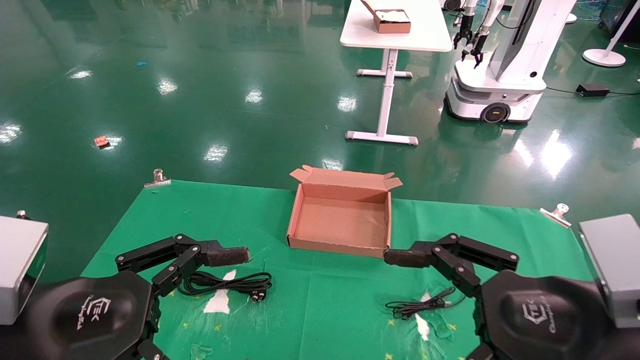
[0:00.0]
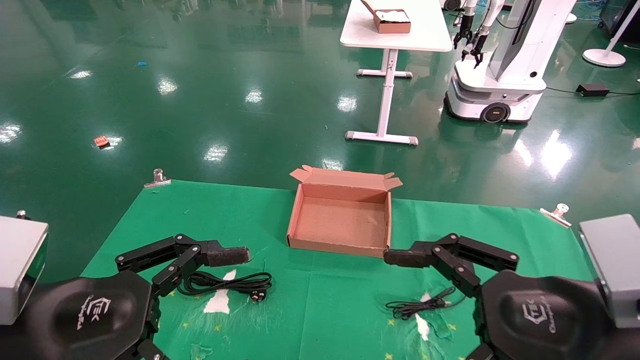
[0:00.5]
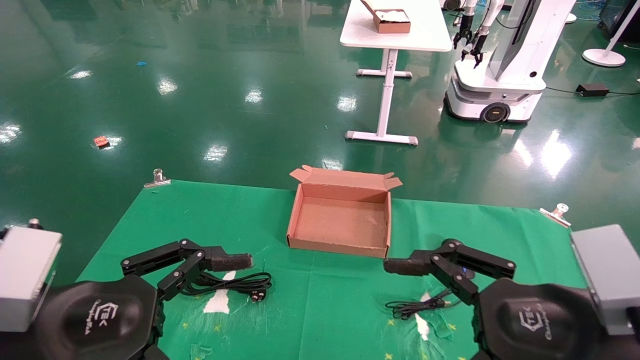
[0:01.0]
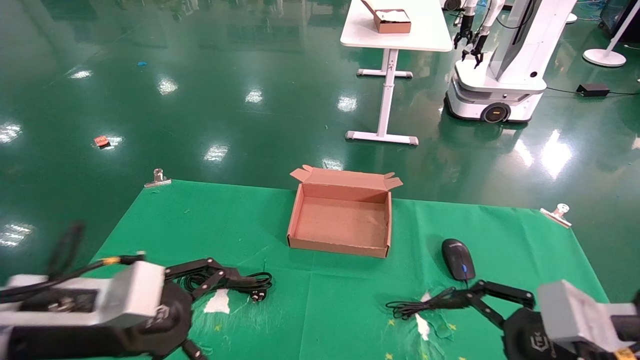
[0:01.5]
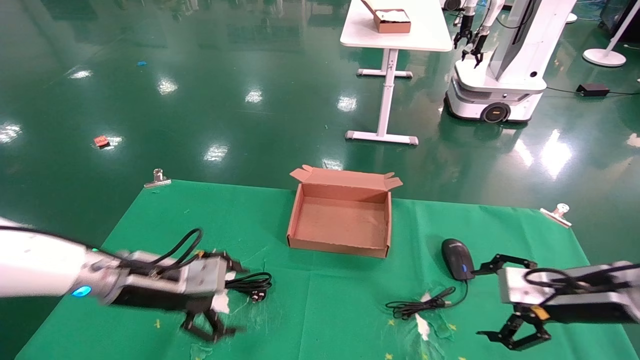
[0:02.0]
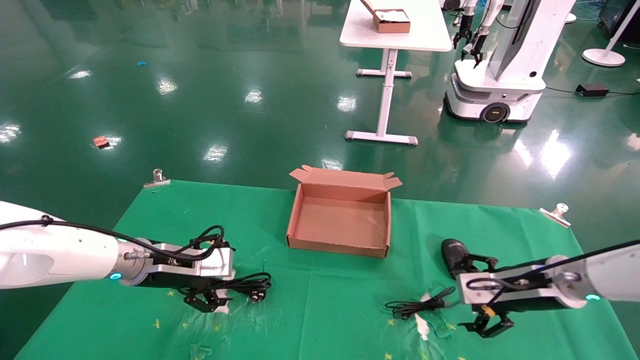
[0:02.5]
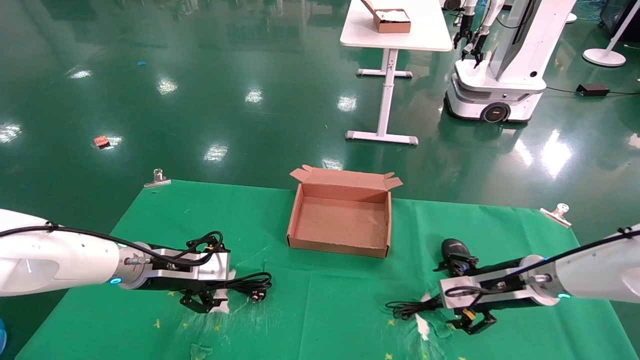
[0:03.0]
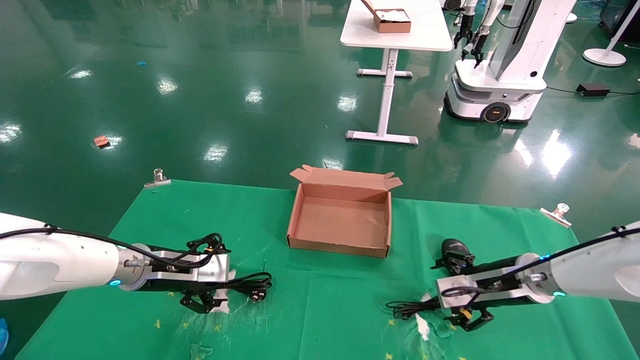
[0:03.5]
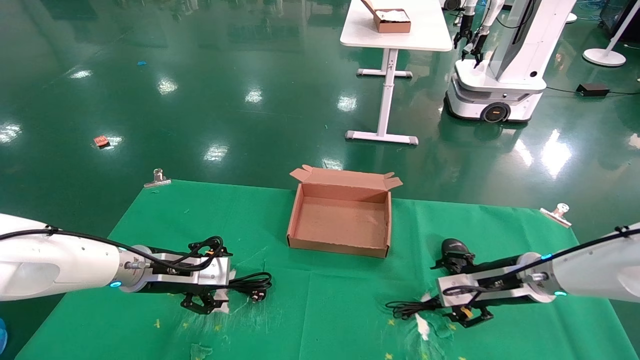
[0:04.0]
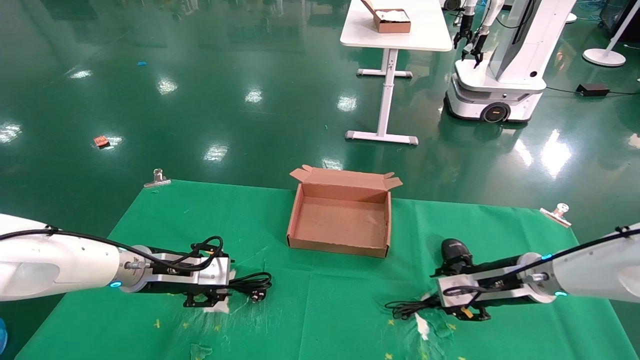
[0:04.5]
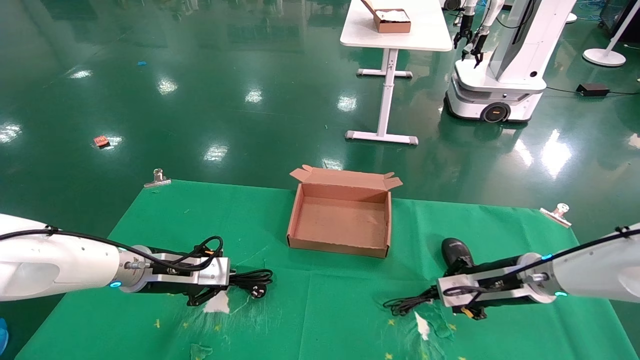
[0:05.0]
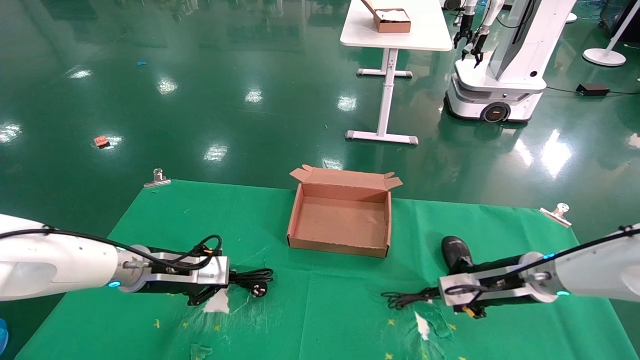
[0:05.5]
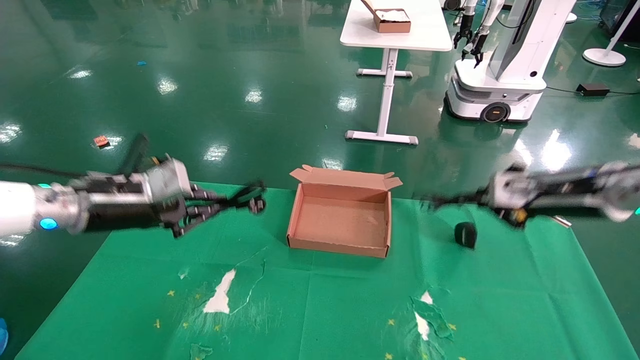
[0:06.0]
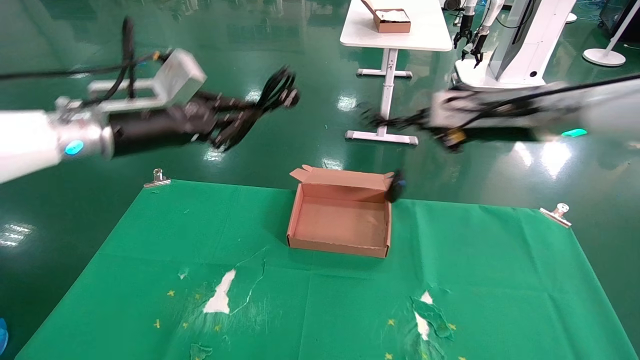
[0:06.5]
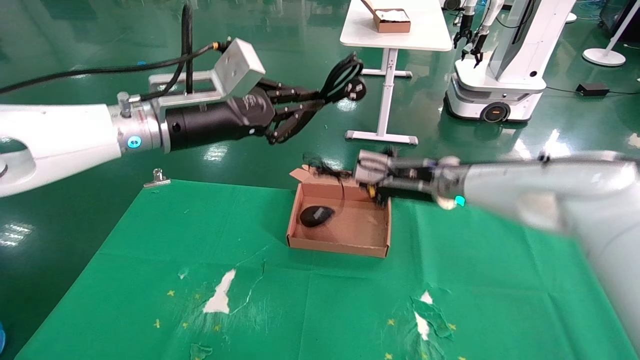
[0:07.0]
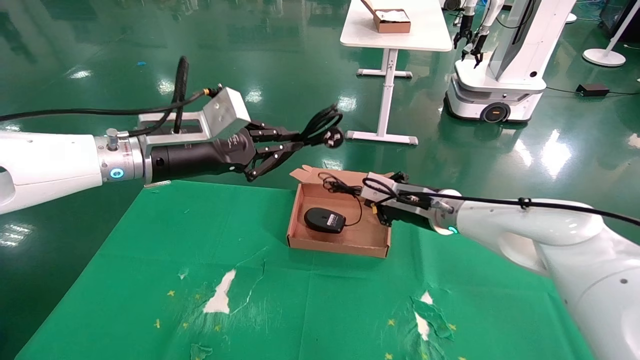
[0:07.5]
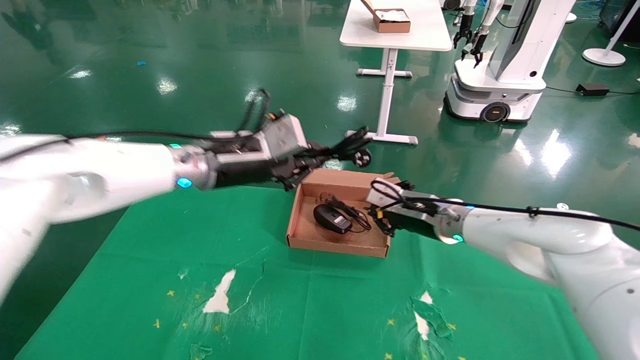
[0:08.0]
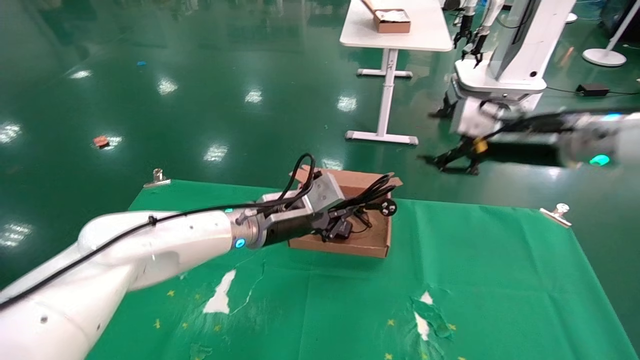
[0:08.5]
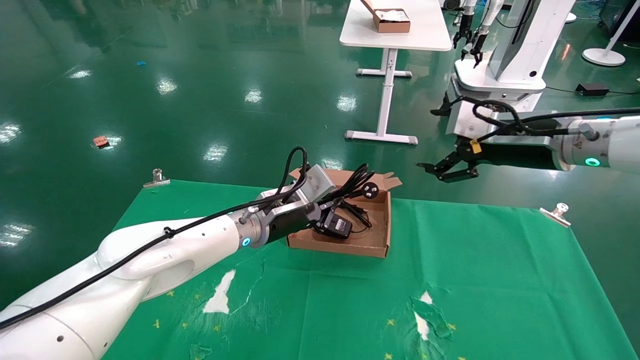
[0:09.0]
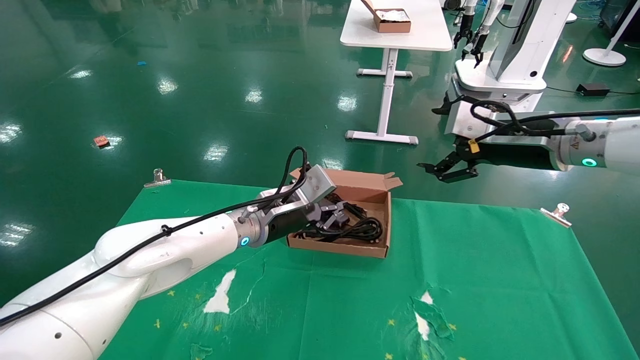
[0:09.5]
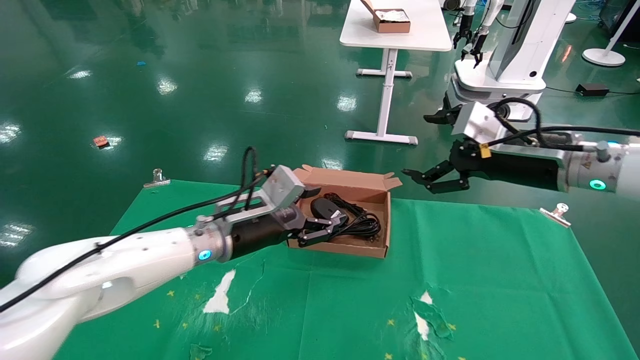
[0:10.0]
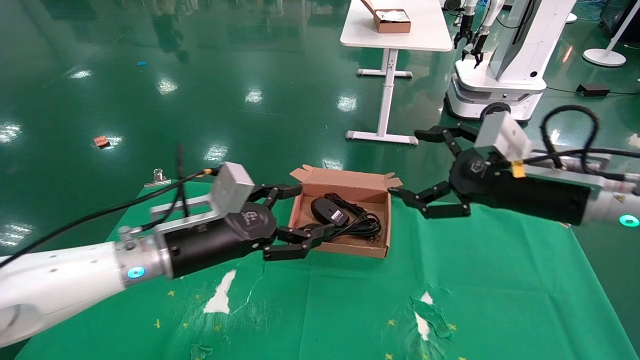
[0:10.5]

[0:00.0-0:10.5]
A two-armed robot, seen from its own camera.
Step, 0:02.0 to 0:05.5: Grab and lift both the mouse and power cord from the accessory packaging area at the same time.
0:00.0 to 0:02.0: The left gripper travels forward by about 20 cm. Meanwhile the right gripper moves forward, to the right and downward, approximately 20 cm.
0:02.0 to 0:04.0: The right gripper goes some 10 cm forward and to the left. The left gripper moves forward, some 5 cm.
0:04.0 to 0:06.5: Both grippers move upward, approximately 20 cm. The right gripper closes its fingers. Meanwhile the left gripper closes its fingers.
0:06.5 to 0:08.5: The left gripper shifts some 20 cm to the right and downward, while the right gripper reaches approximately 15 cm downward, then returns, and opens its fingers.
0:08.5 to 0:10.5: The left gripper heads backward and to the left, covering roughly 15 cm, and opens its fingers, while the right gripper heads backward, covering approximately 10 cm, and opens its fingers.

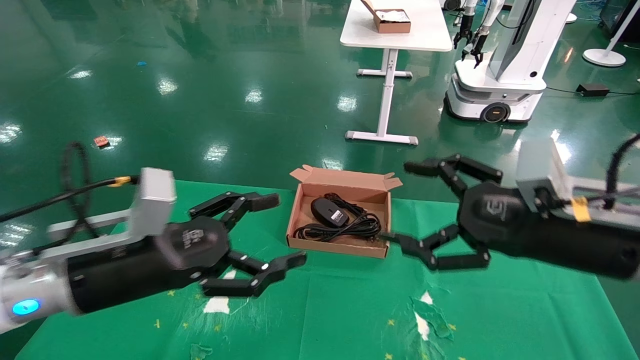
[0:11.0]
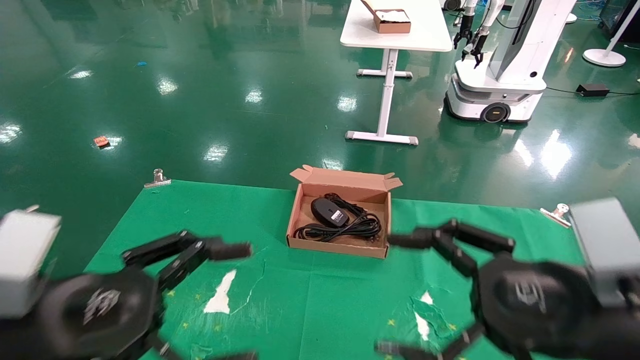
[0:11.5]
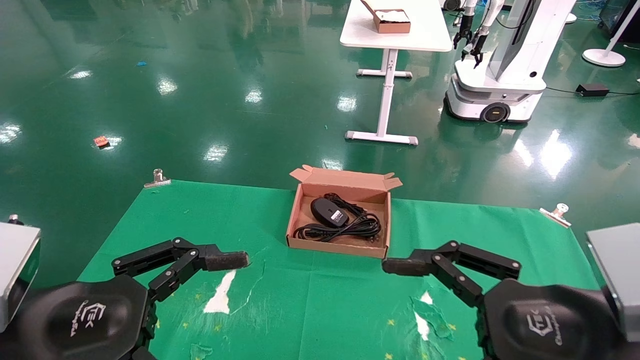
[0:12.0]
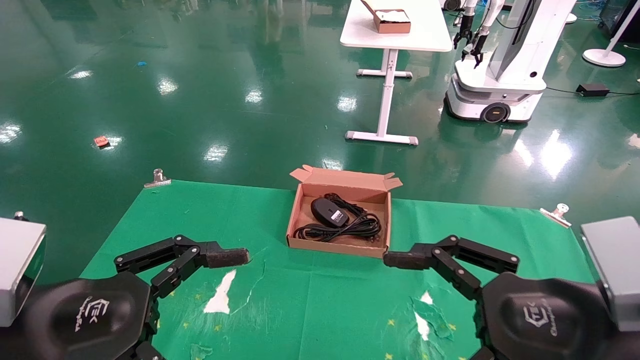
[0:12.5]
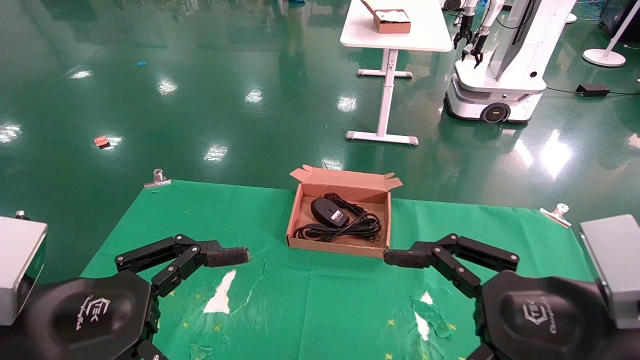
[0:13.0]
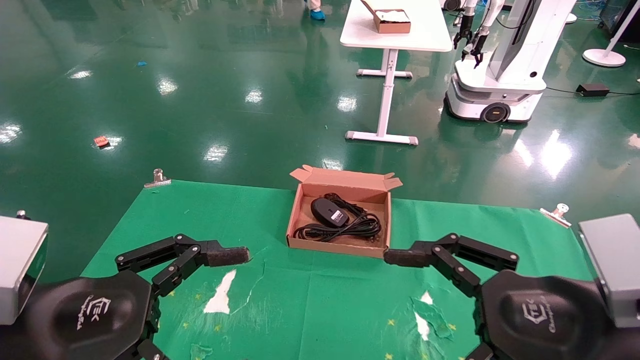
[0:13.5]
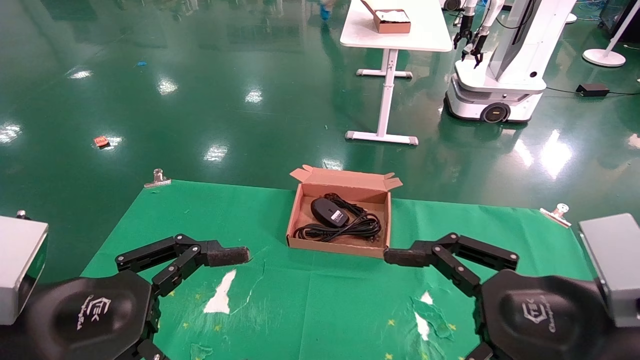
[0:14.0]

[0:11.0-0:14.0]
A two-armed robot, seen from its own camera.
0:11.0 to 0:12.5: The two grippers go about 10 cm backward.
0:12.5 to 0:14.0: The two grippers keep their place.

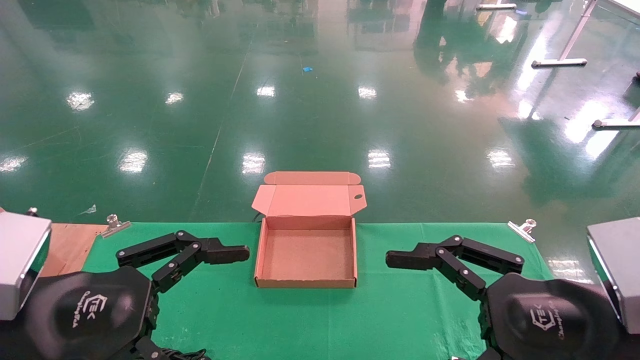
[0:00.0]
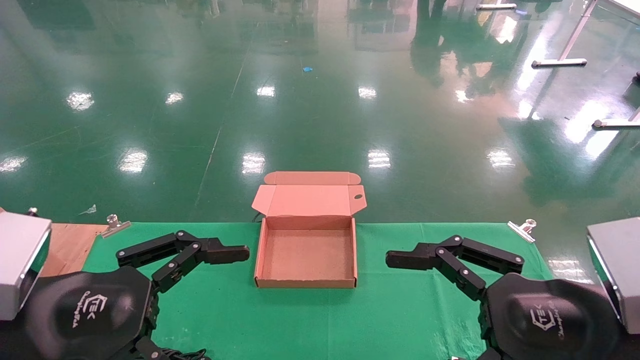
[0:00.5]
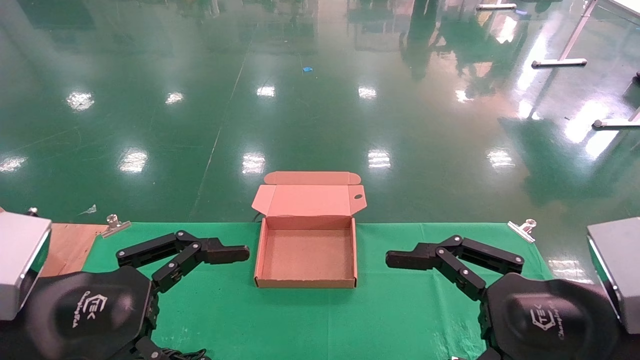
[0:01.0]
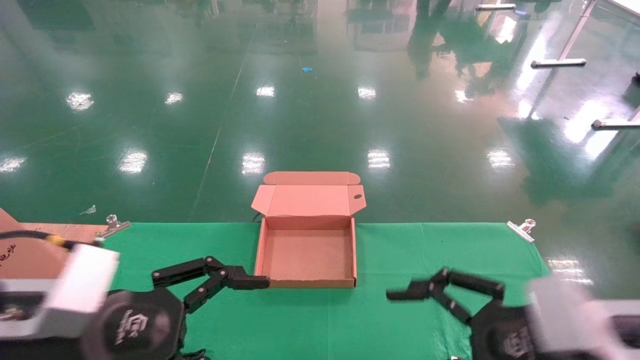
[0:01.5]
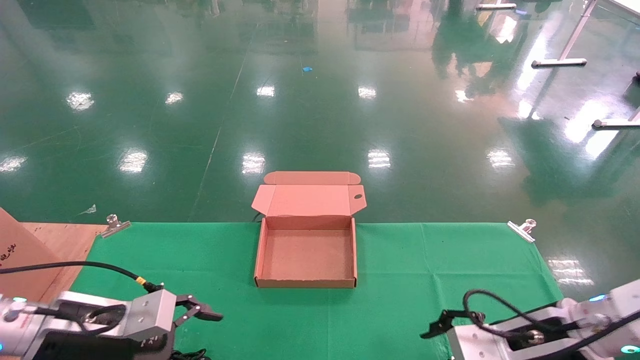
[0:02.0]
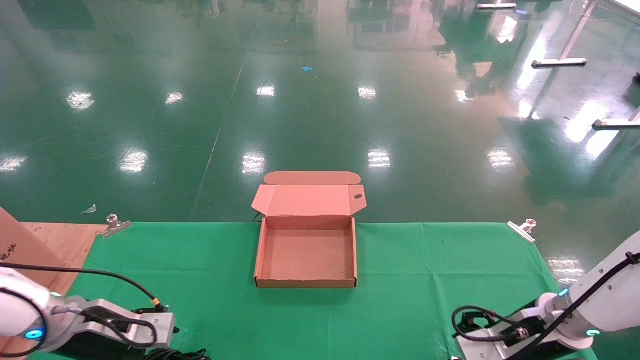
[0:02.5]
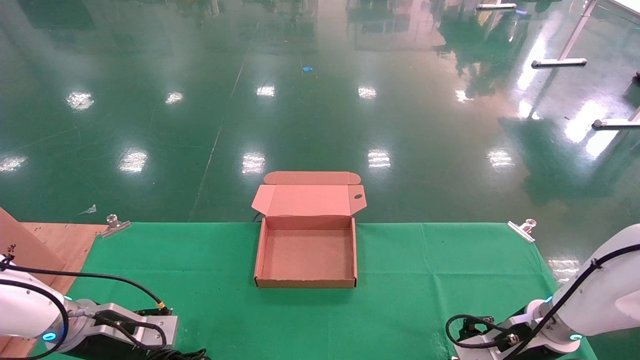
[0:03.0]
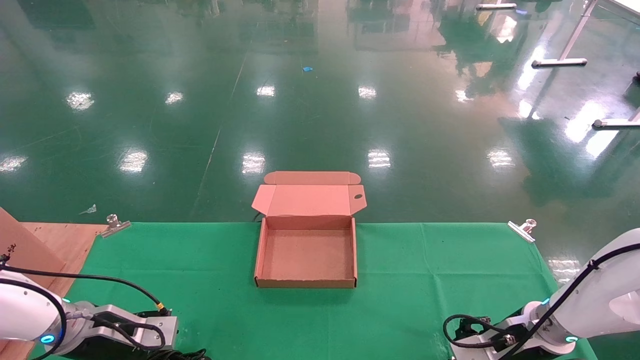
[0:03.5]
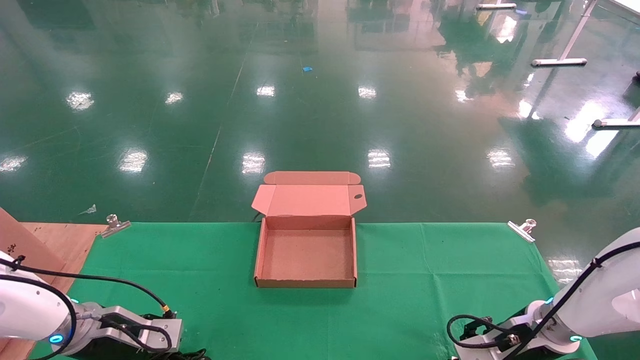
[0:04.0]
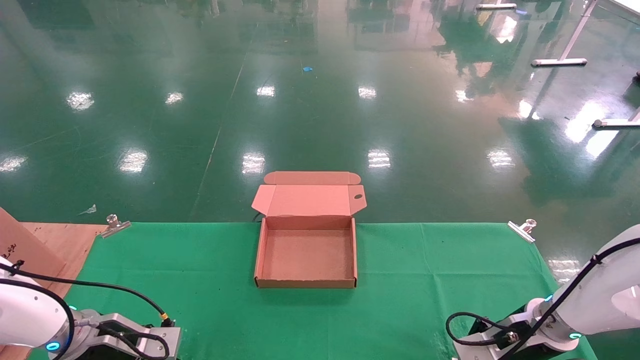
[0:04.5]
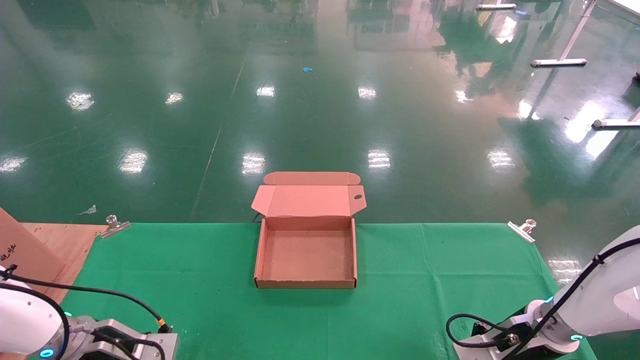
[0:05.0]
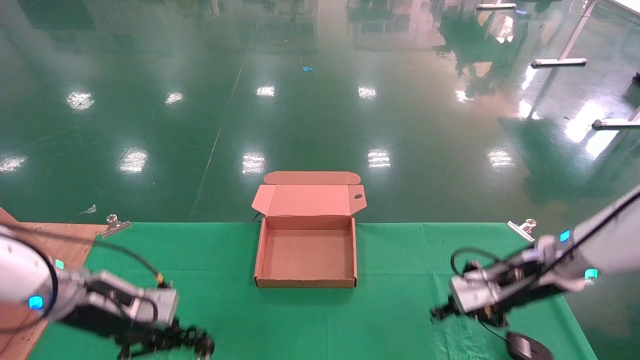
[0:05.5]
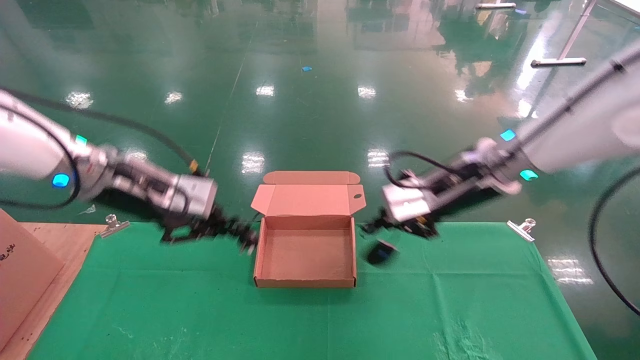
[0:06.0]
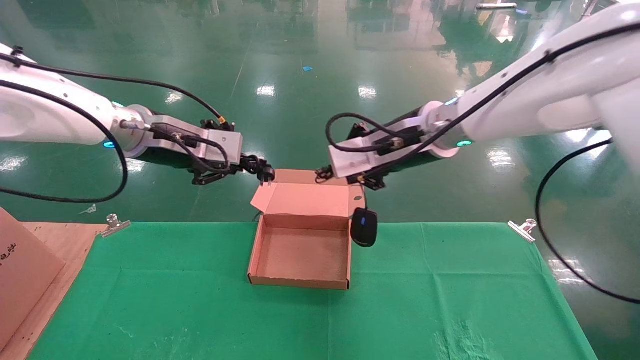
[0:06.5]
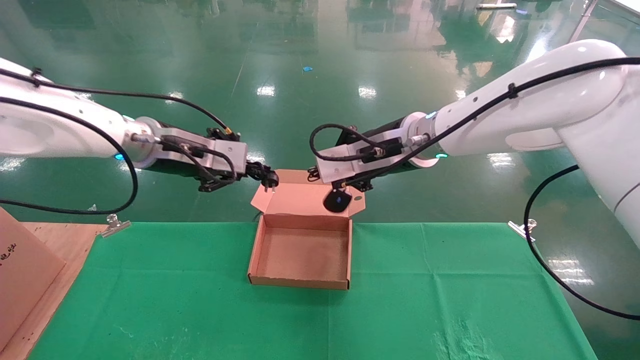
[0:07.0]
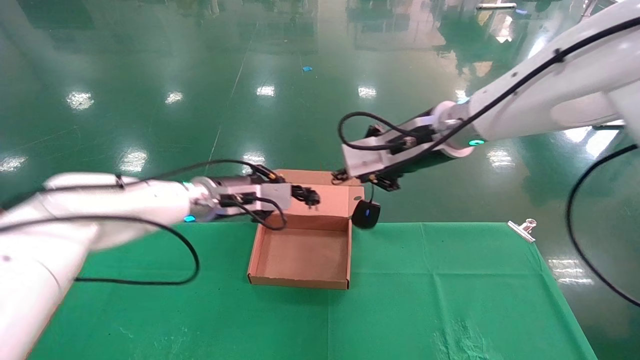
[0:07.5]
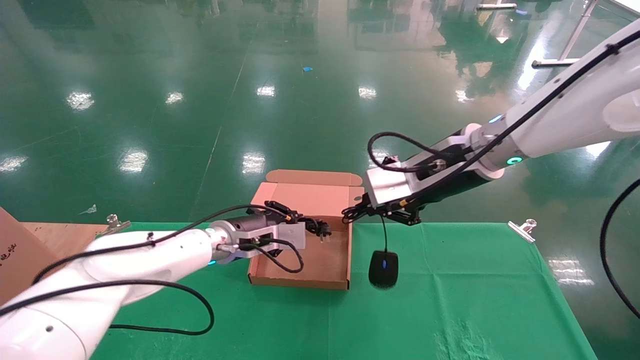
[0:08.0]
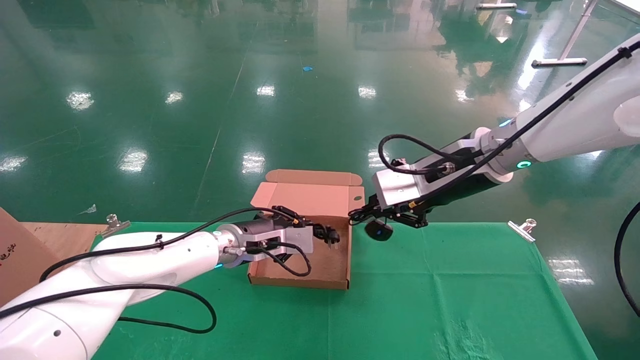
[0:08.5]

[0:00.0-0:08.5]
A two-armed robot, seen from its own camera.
Step, 0:02.0 to 0:05.0: Grab and lift both the mouse and power cord from the accessory packaging area at the same time.
0:00.0 to 0:02.0: Both grippers travel together forward and downward, approximately 15 cm.
0:02.0 to 0:04.0: The two grippers go about 10 cm forward and downward.
0:04.0 to 0:06.5: The left gripper is displaced upward by approximately 30 cm, and closes up. The right gripper shifts some 35 cm upward and to the left, and closes its fingers.
0:06.5 to 0:08.5: The left gripper is displaced downward and to the right by about 20 cm. The right gripper changes place by approximately 5 cm.
